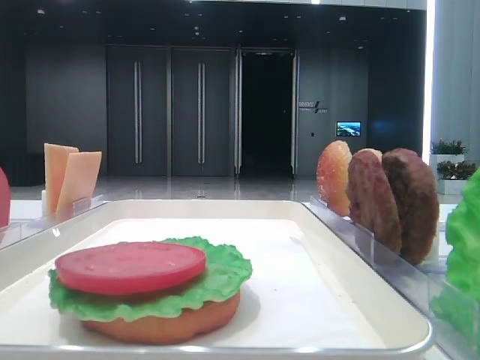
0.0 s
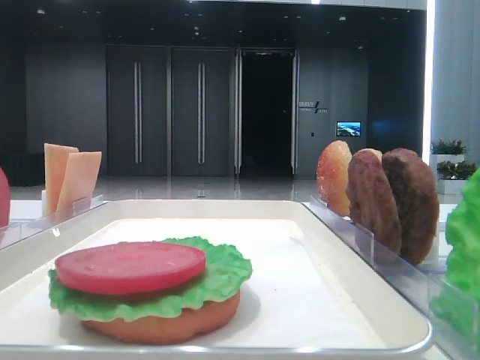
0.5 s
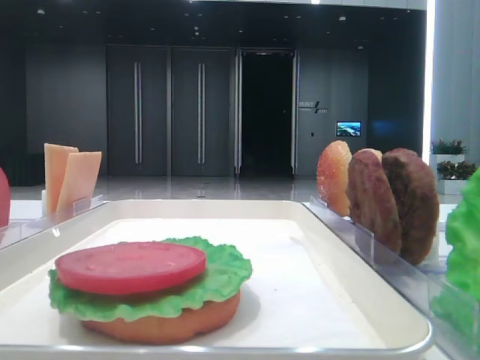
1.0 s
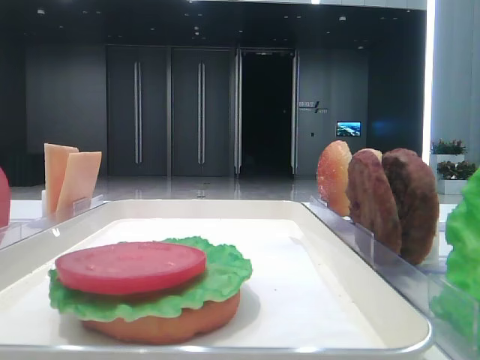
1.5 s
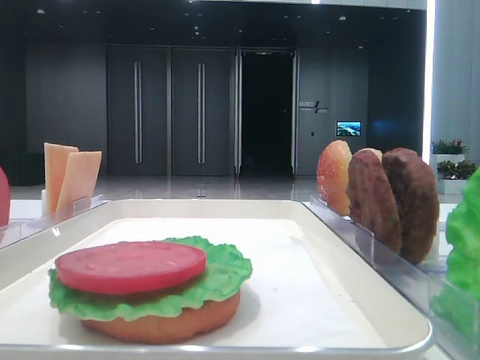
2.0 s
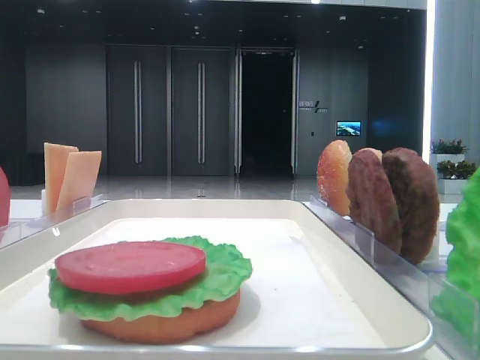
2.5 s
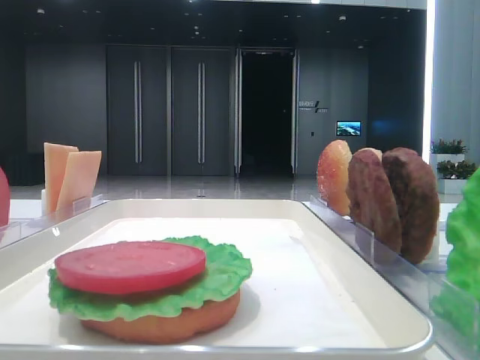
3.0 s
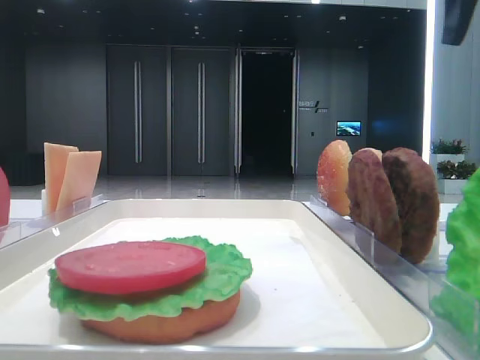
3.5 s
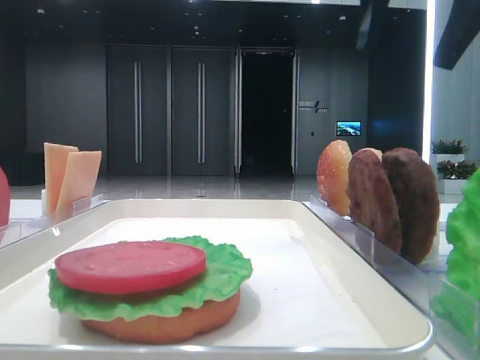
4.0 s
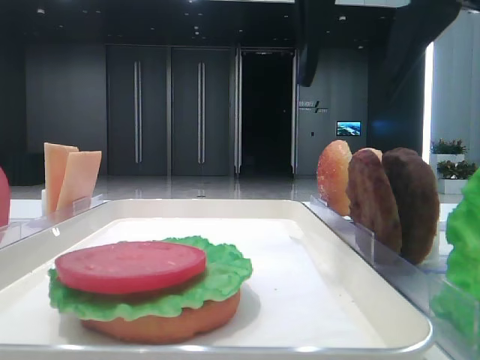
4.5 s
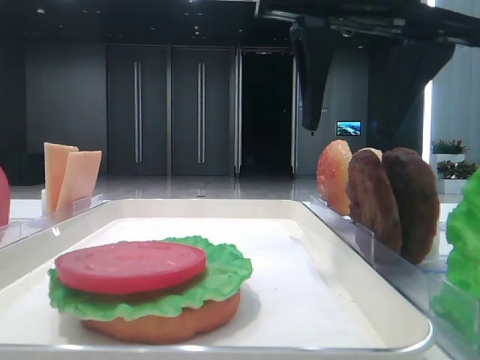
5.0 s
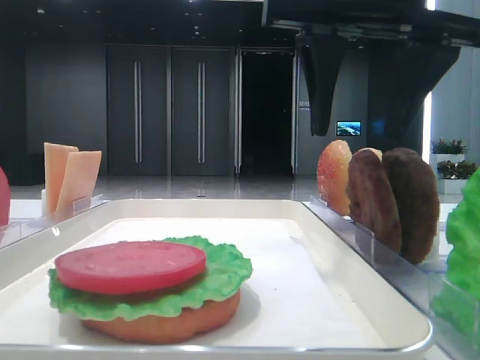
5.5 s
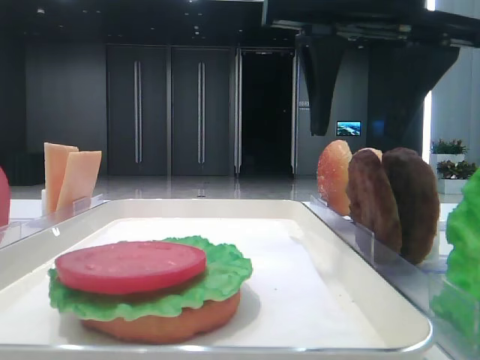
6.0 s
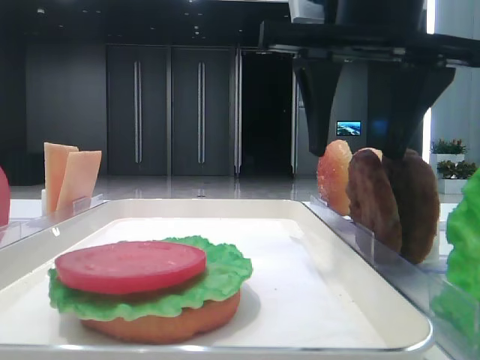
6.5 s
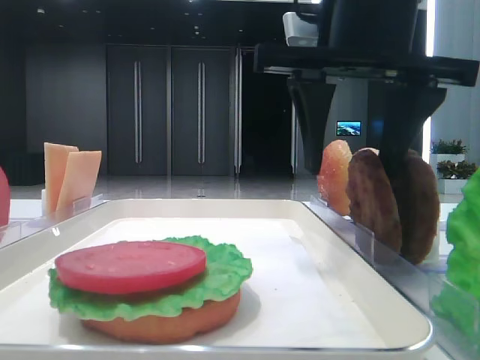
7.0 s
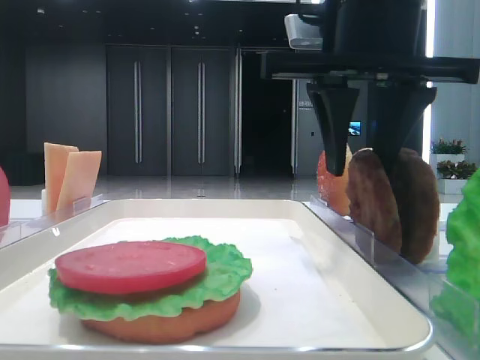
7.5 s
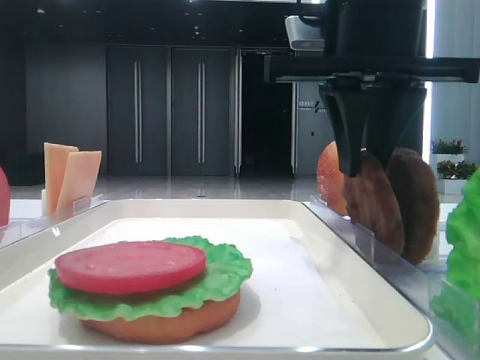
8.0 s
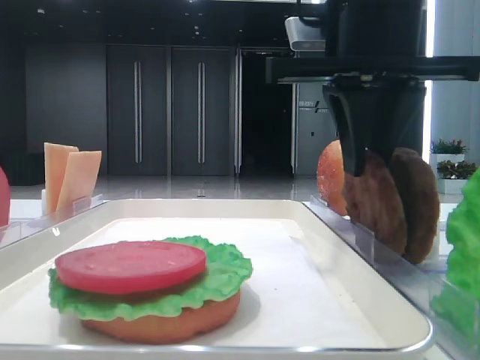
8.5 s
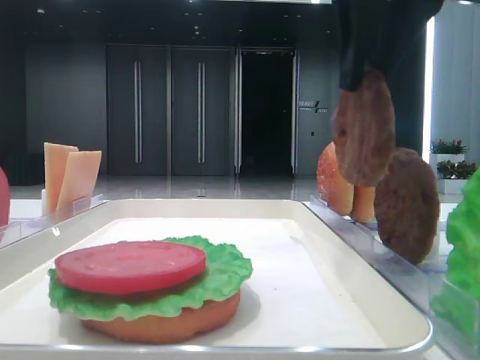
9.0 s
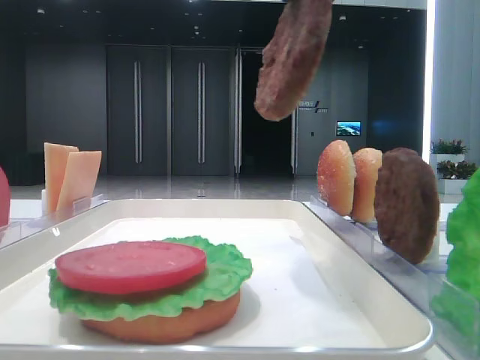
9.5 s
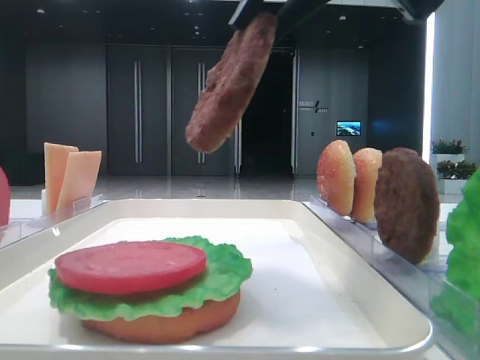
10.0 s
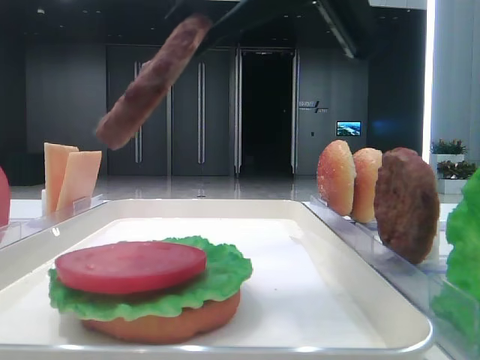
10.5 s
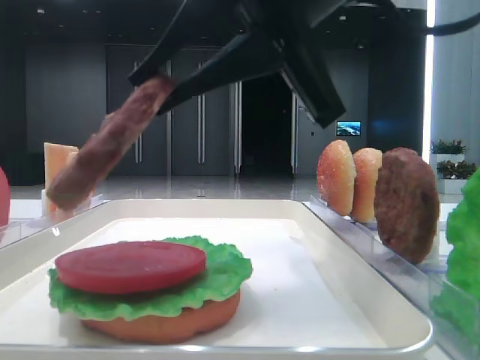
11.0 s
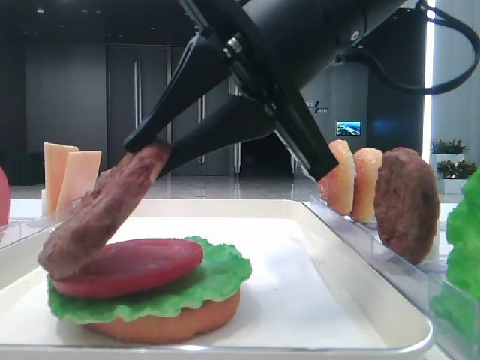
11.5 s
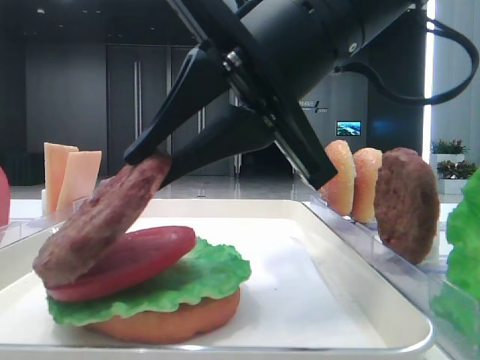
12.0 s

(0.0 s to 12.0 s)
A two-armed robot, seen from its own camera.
Step, 0.0 s - 8.0 s: Grab the patty with the right hand.
2.0 s - 4.0 s: The right gripper moves to the left and forward, about 20 cm.
4.0 s - 6.0 s: The right gripper goes about 5 cm downward.
6.0 s - 8.0 s: The right gripper closes up.
8.0 s - 10.0 s: The right gripper is displaced backward and upward by approximately 10 cm.
10.0 s - 12.0 s: The right gripper is displaced downward by roughly 10 cm.

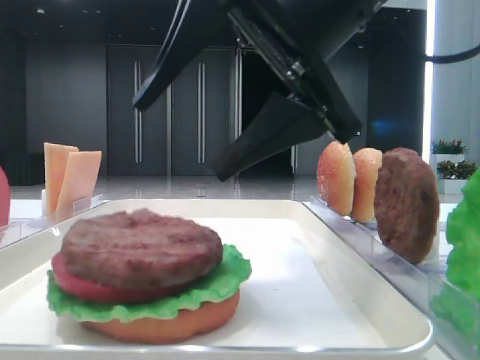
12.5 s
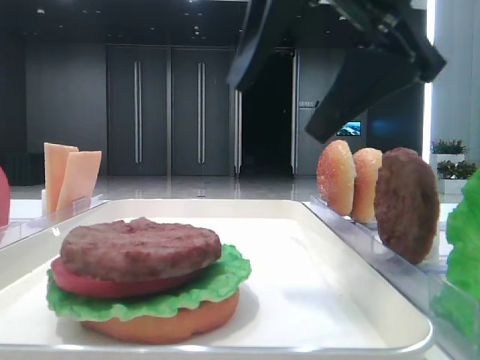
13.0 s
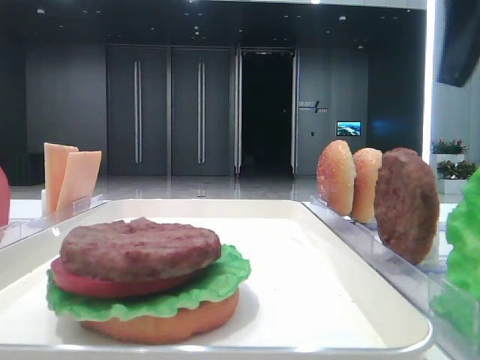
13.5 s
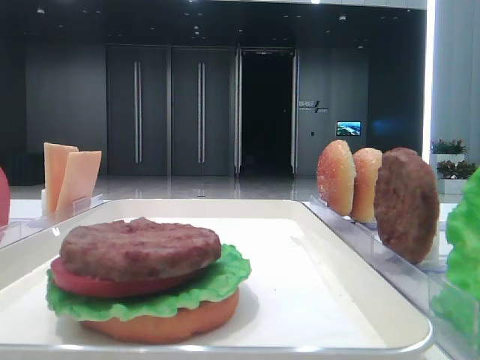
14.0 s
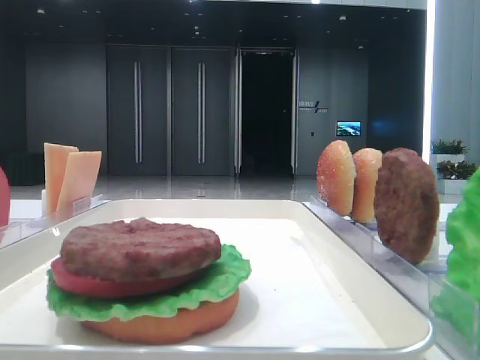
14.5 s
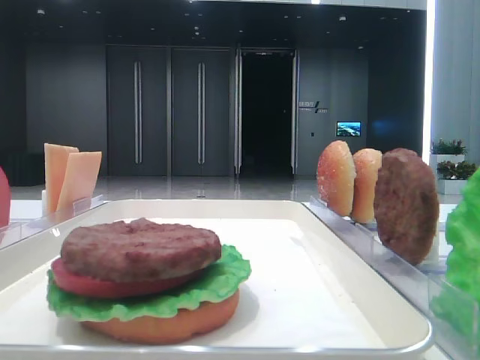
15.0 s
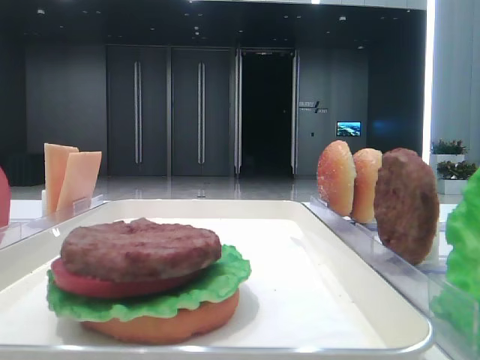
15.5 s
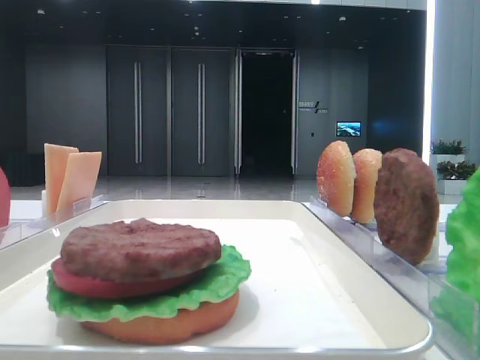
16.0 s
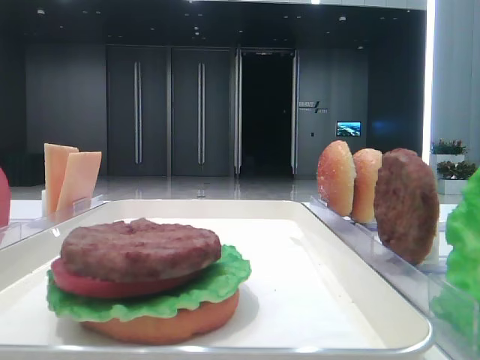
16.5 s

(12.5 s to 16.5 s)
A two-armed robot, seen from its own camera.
12.5 s - 14.5 s: The right gripper travels to the right by some 25 cm.

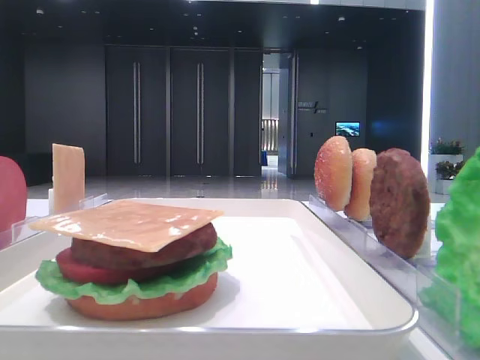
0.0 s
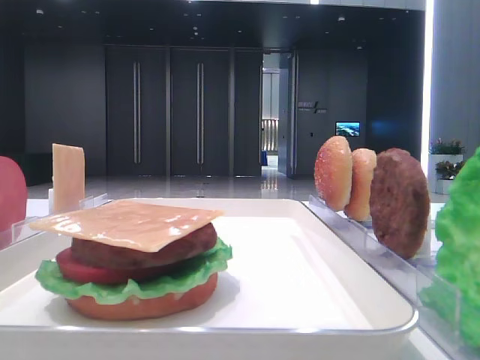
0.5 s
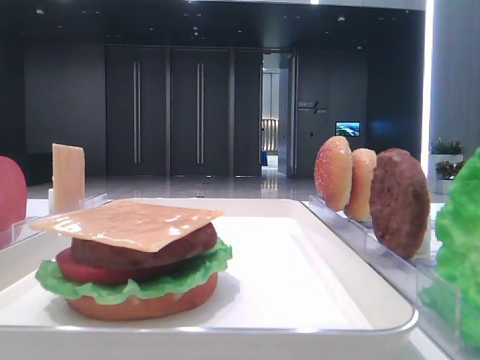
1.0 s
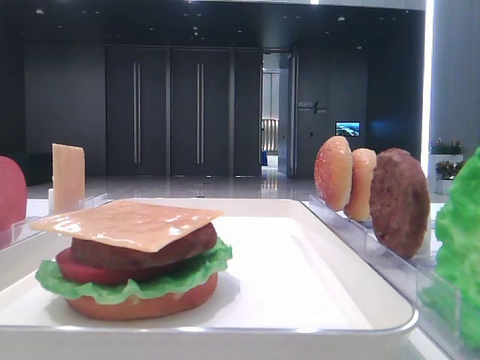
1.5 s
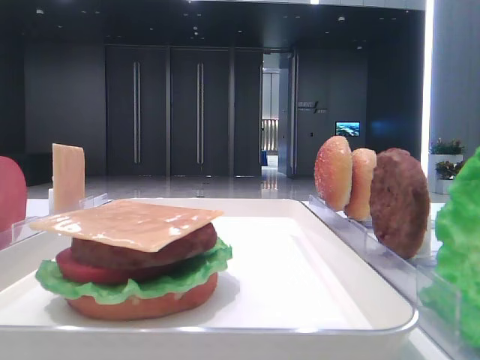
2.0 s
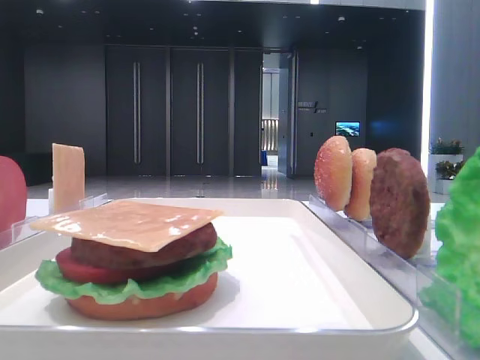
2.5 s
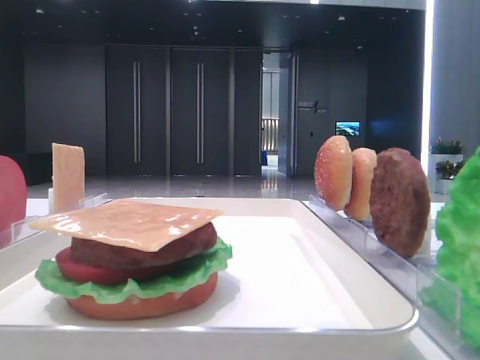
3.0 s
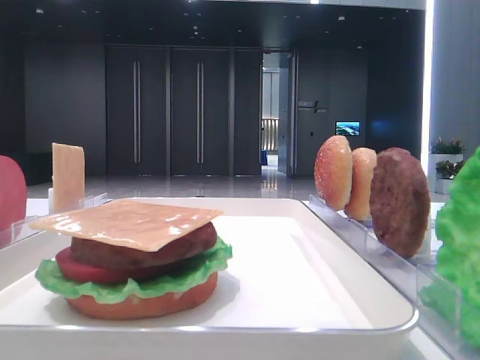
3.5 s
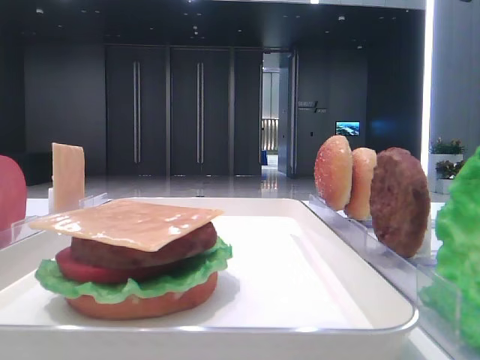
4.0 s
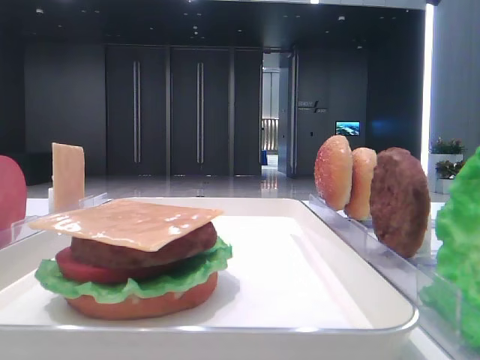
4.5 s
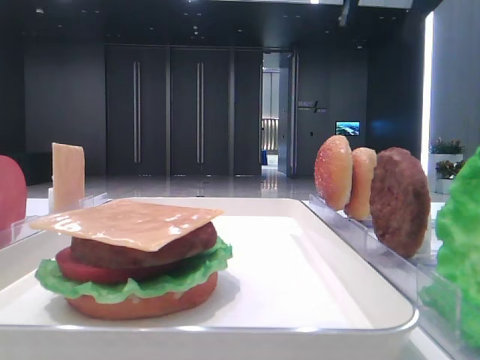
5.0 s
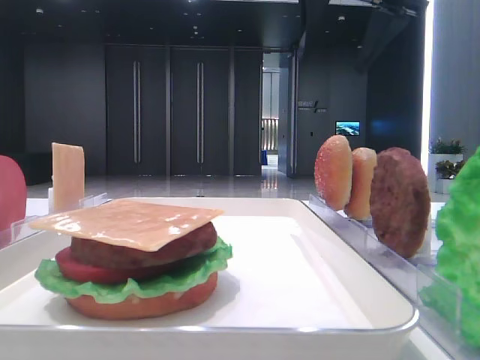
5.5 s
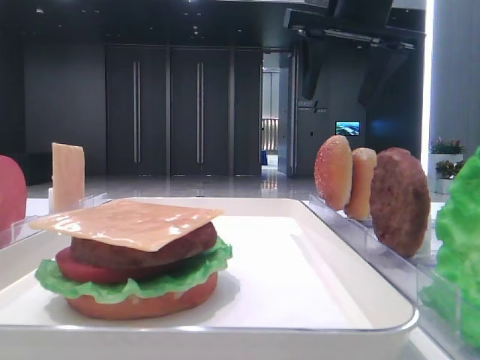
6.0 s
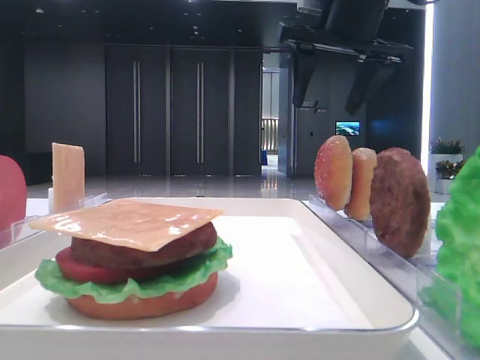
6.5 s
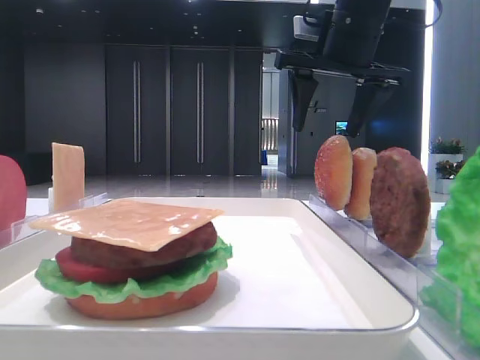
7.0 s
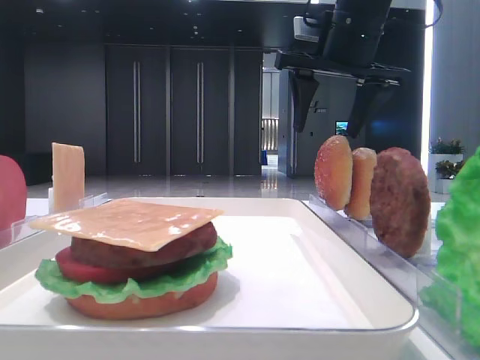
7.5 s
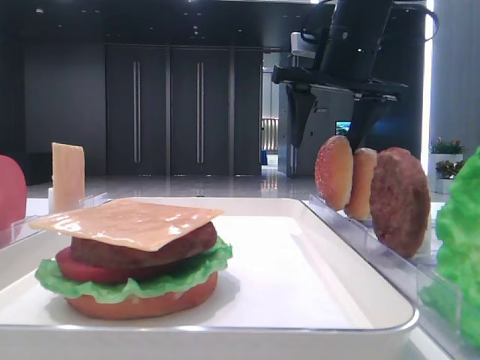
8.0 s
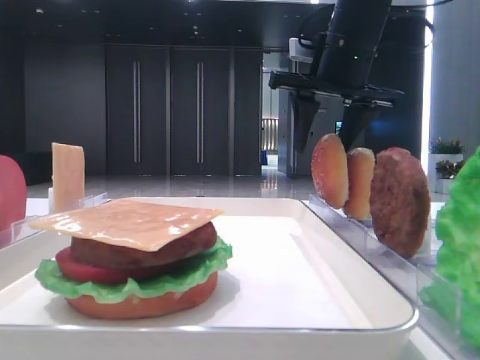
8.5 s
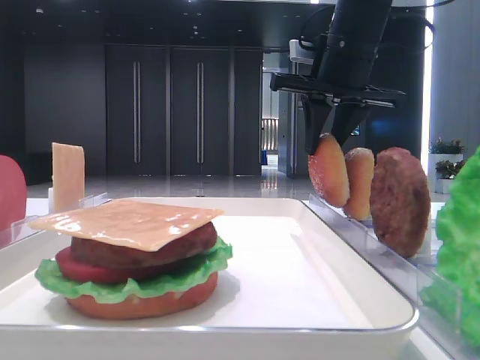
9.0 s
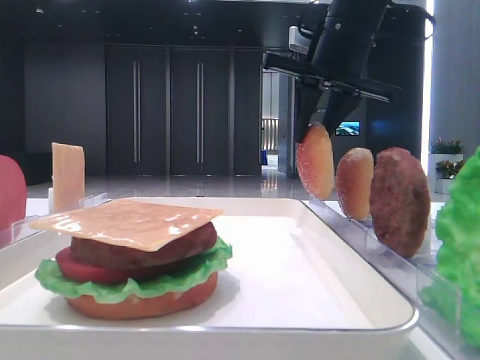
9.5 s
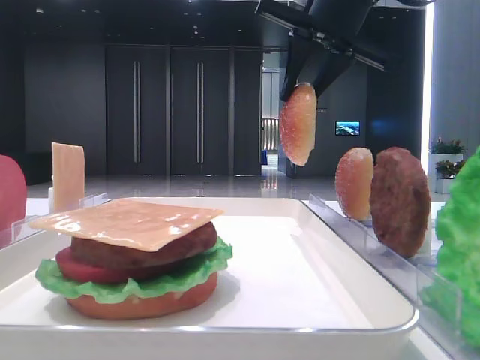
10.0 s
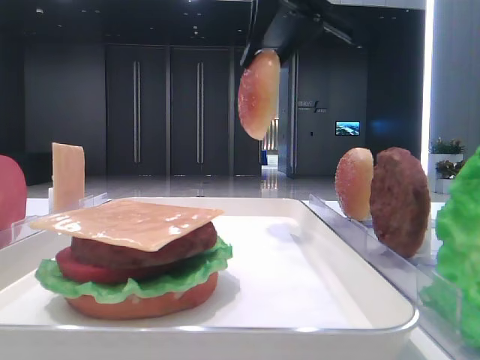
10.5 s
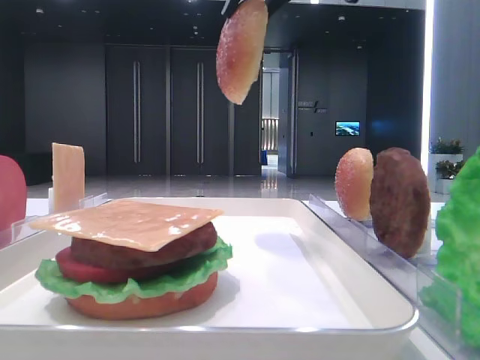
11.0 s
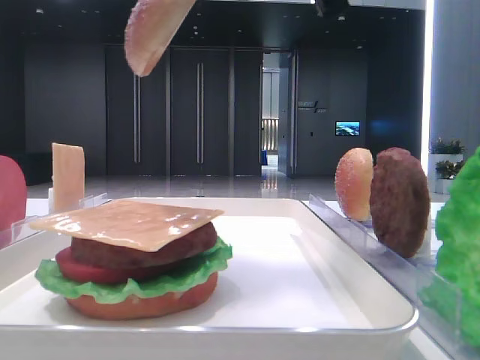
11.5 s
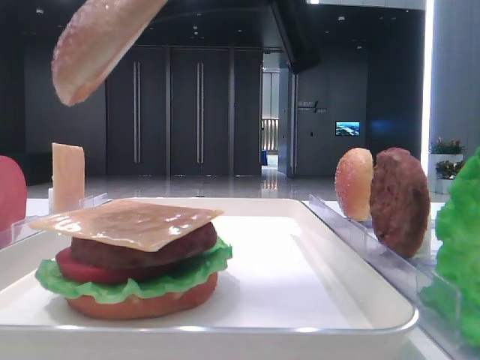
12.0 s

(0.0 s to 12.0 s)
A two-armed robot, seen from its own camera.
Step, 0.0 s - 8.5 s: Pick up the top bread slice with the right hand.
4.0 s - 6.0 s: The right gripper goes some 20 cm to the left and downward.
6.0 s - 8.0 s: The right gripper travels downward by some 5 cm.
8.0 s - 10.0 s: The right gripper ends up roughly 5 cm from where it was, and closes up.
10.0 s - 12.0 s: The right gripper heads backward, covering about 20 cm.
